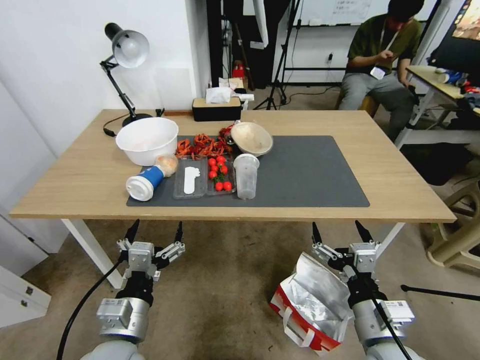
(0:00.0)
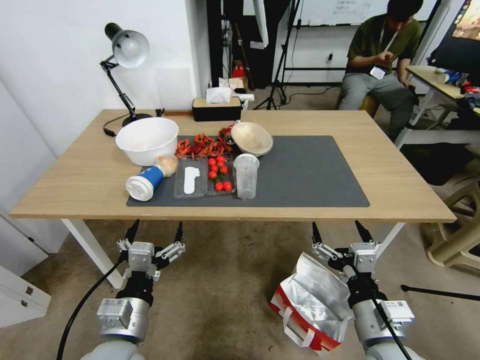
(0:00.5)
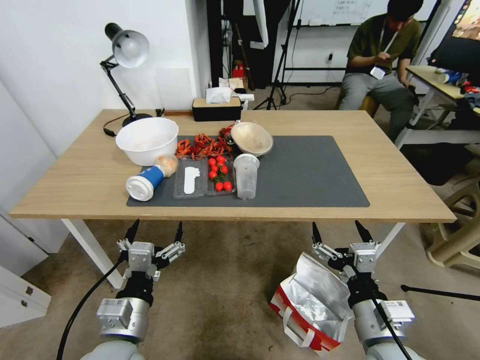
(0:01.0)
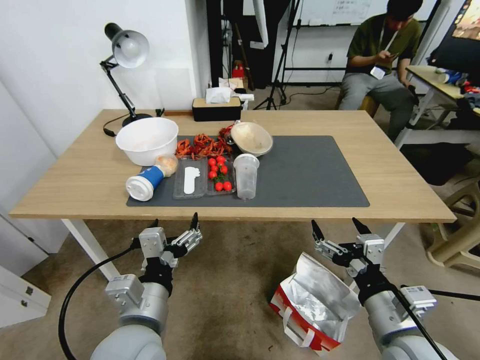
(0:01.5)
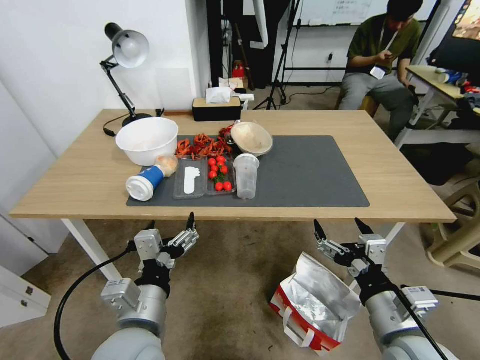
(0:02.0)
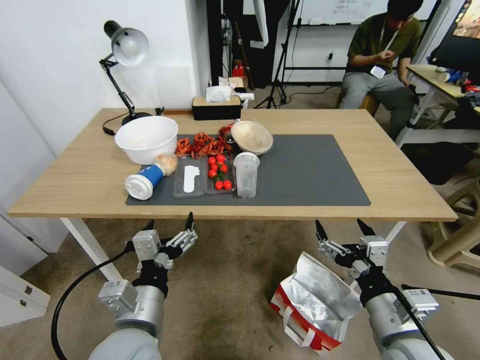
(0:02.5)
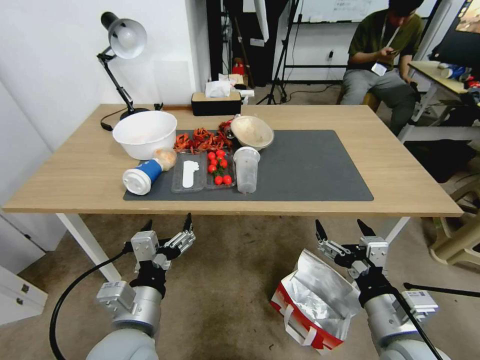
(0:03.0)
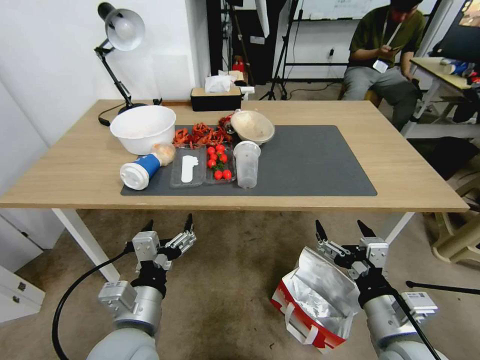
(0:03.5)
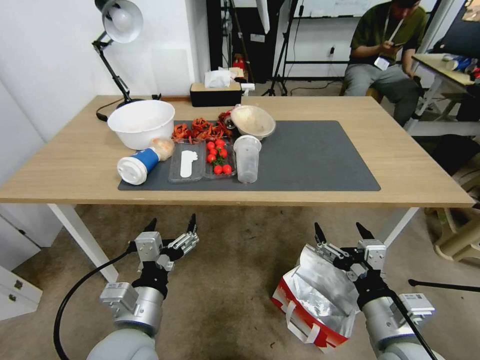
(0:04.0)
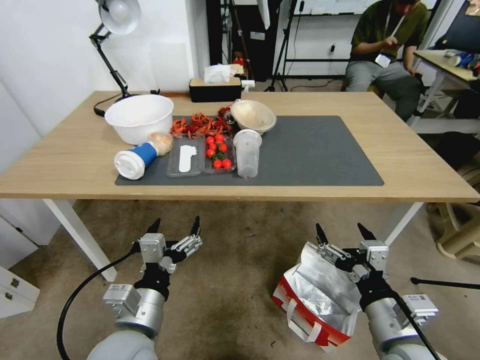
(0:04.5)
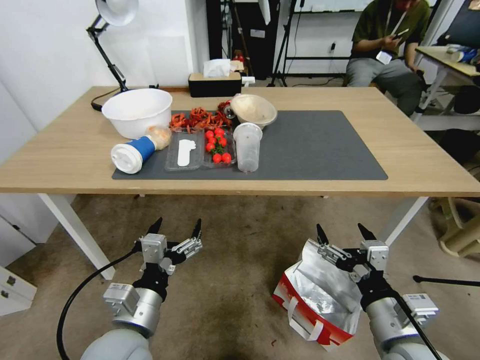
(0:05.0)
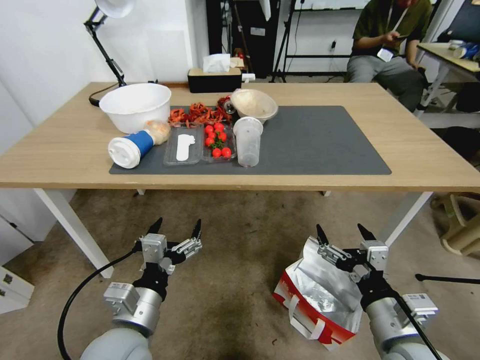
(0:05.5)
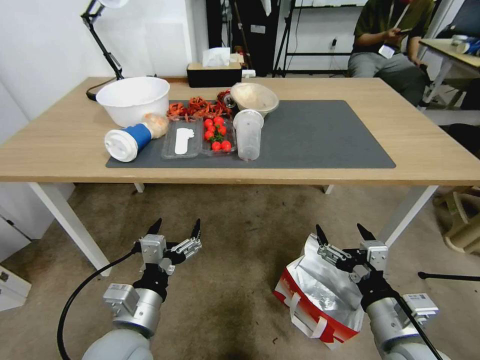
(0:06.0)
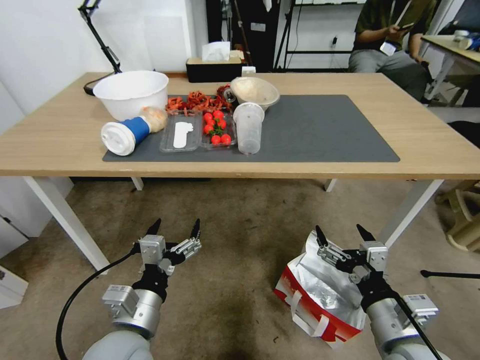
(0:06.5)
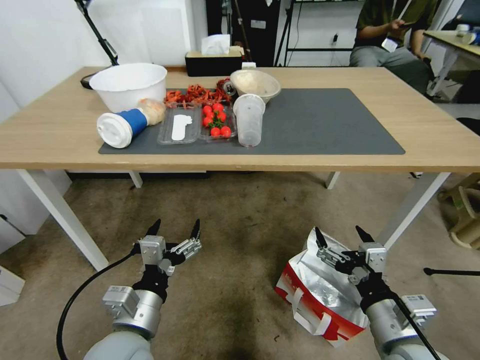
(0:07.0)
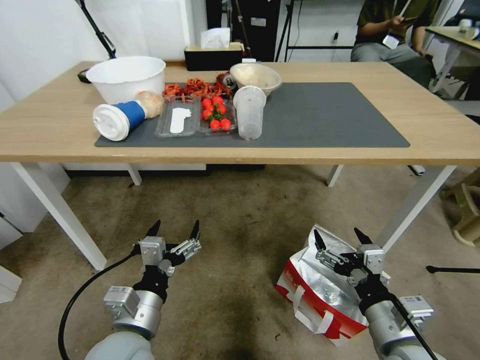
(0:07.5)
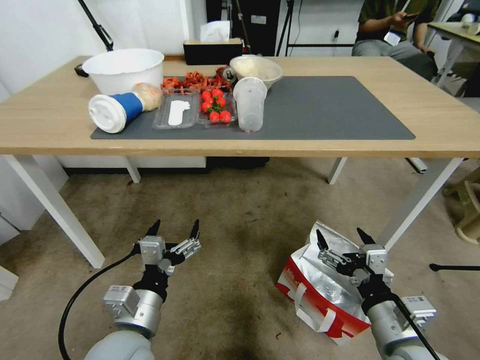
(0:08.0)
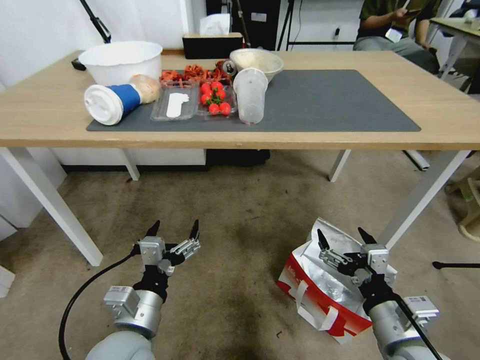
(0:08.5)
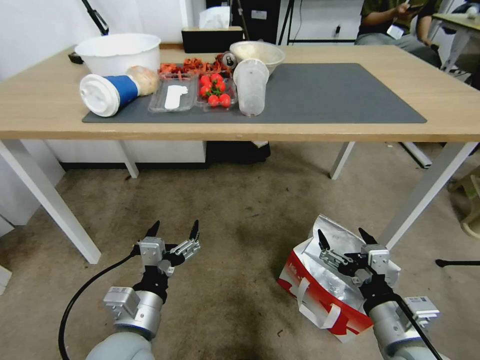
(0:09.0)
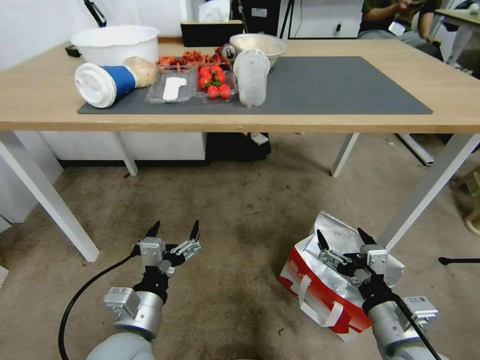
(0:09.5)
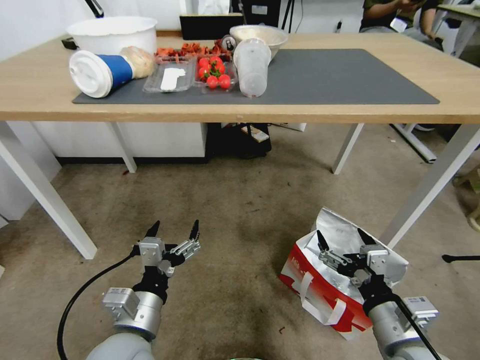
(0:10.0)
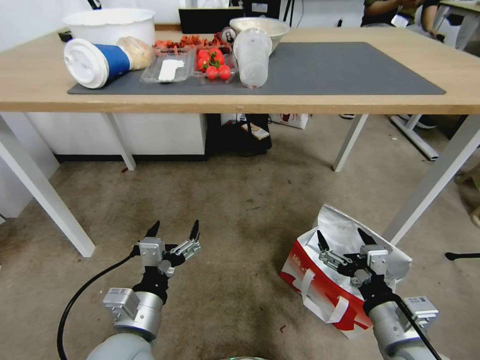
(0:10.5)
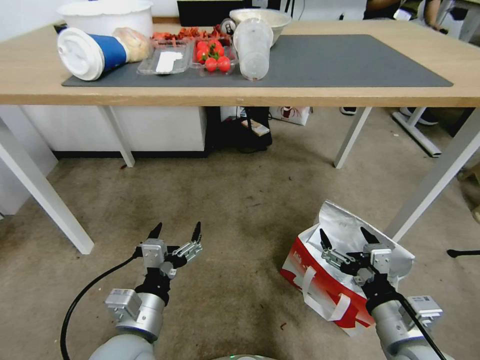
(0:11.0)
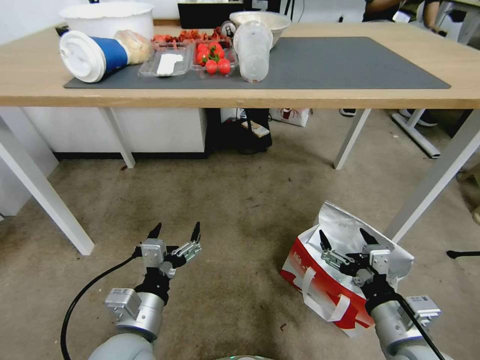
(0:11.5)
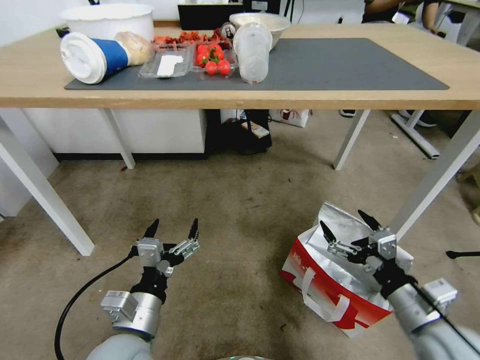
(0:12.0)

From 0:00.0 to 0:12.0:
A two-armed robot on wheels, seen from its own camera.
Task of the whole recording: Pick up the food delivery bag from the floor and place it on the table.
From 0:10.0 to 0:12.0: The right gripper shifts approximately 5 cm to the right.

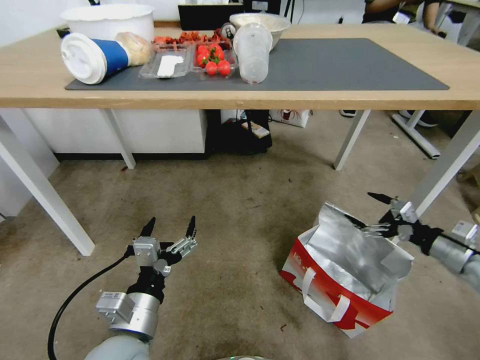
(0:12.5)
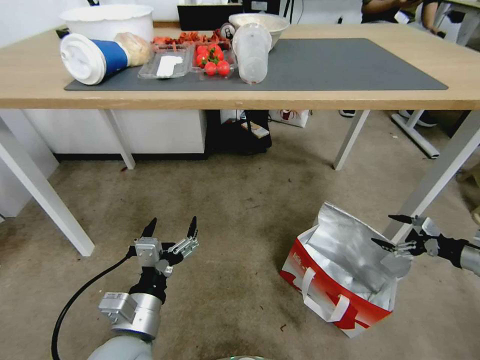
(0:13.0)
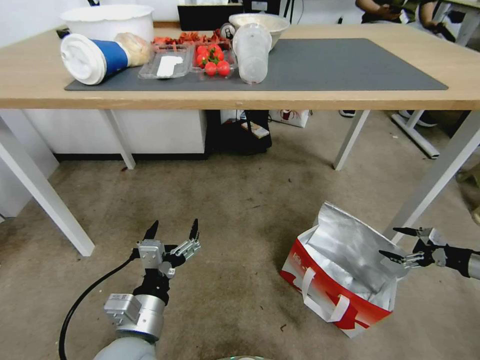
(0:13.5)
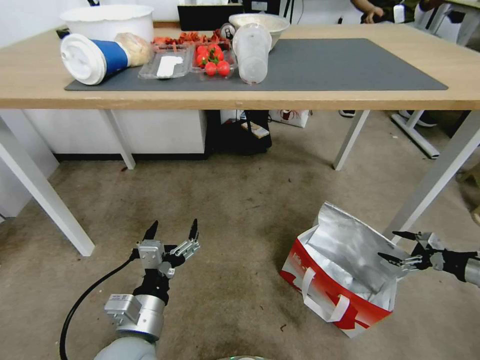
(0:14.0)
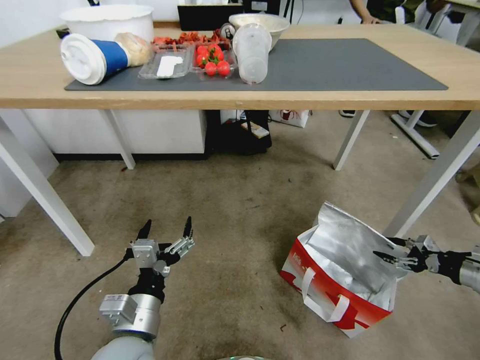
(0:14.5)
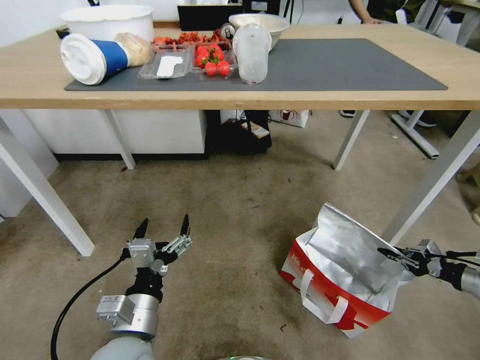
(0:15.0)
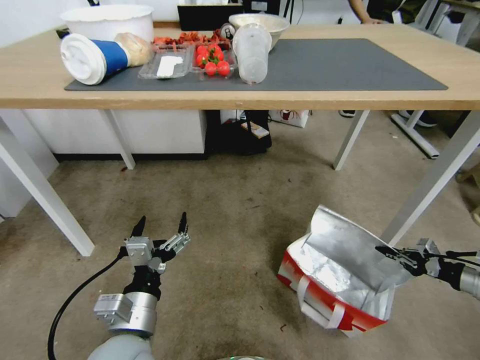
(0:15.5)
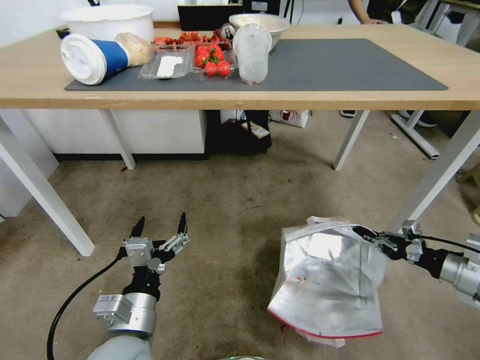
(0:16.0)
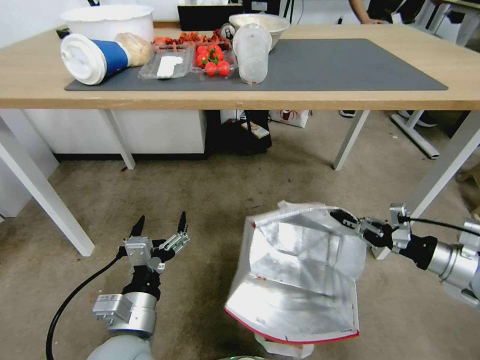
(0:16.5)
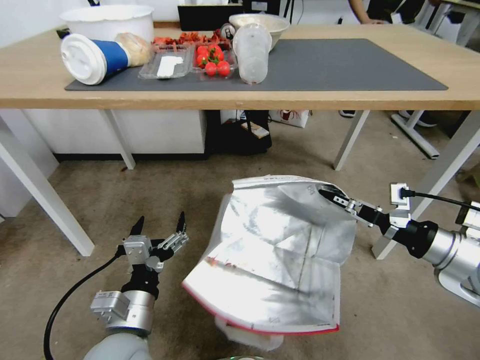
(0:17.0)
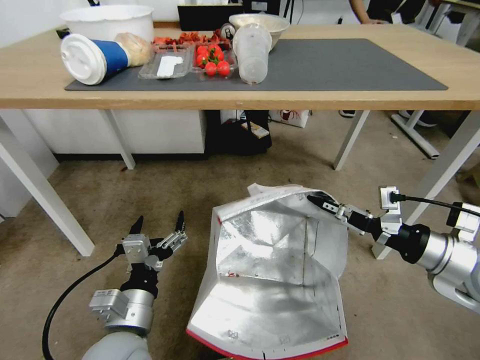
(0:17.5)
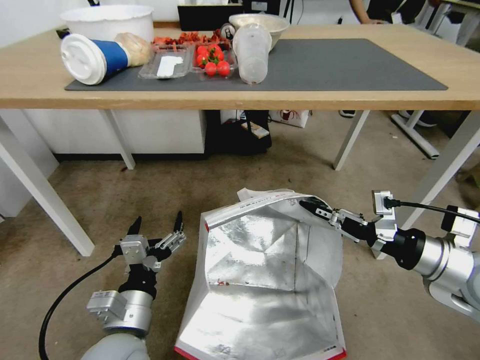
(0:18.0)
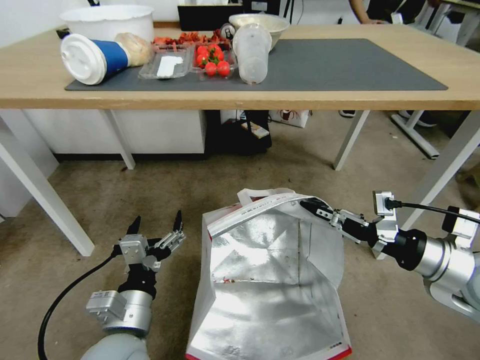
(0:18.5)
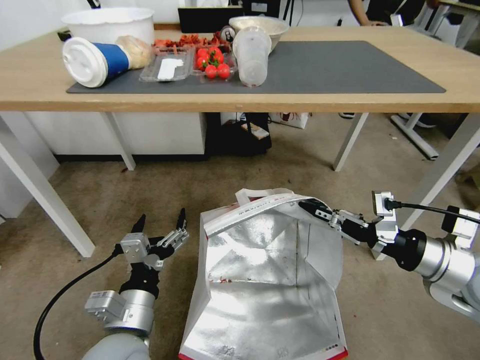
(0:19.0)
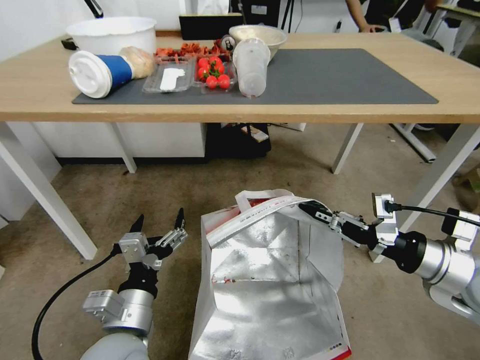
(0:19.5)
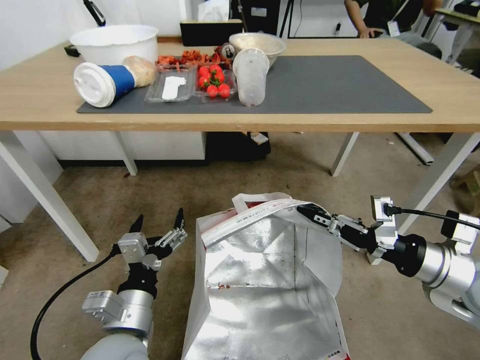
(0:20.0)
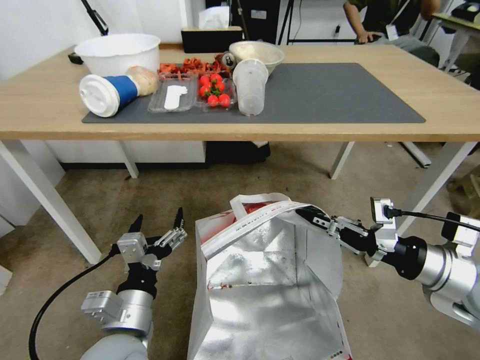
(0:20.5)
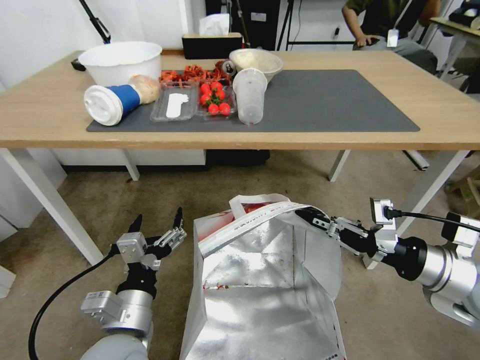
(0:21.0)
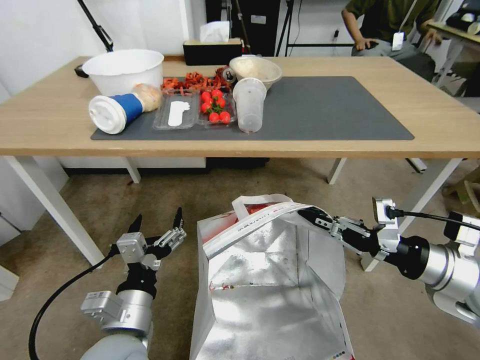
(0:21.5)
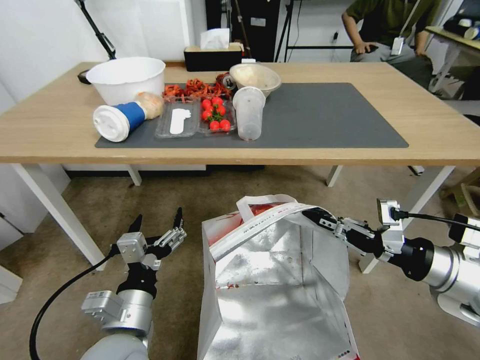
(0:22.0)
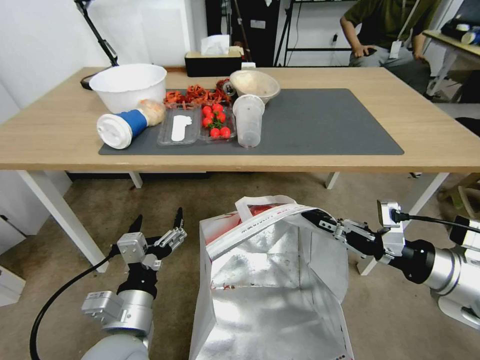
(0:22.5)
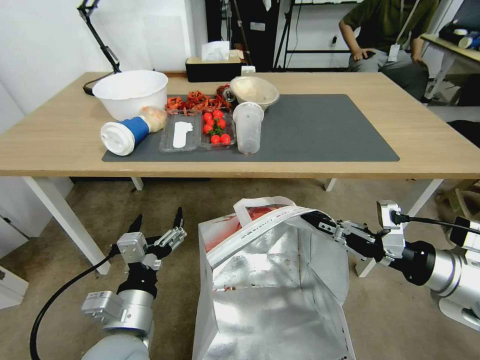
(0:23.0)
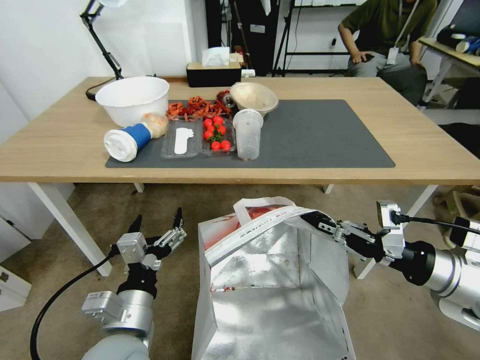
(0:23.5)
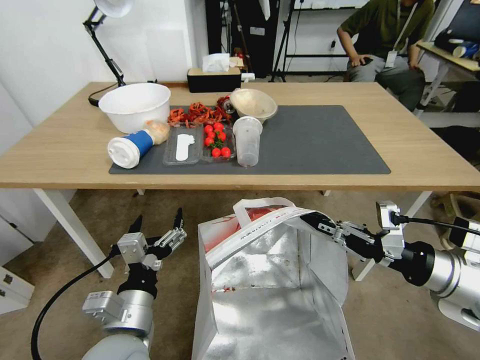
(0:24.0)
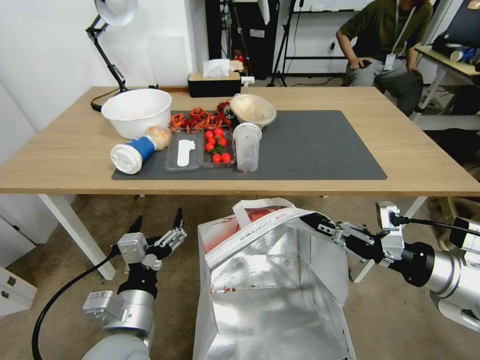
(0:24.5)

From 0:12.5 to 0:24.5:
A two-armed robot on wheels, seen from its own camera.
Task of the whole recording: Pick up the food delivery bag from the floor and place it on the table.
From 0:12.5 to 0:14.5: The right gripper goes approximately 15 cm to the right and downward.
From 0:14.5 to 0:16.5: The right gripper travels to the left and upward by approximately 20 cm, and closes its fingers.
From 0:16.5 to 0:18.5: The right gripper heads to the left and upward, covering approximately 10 cm.

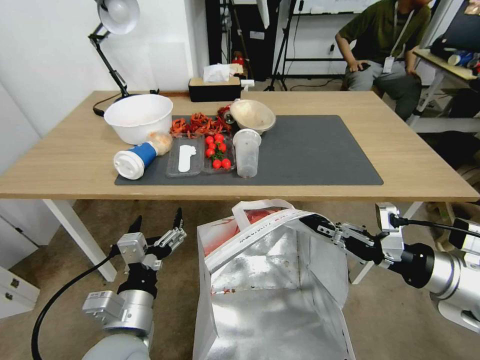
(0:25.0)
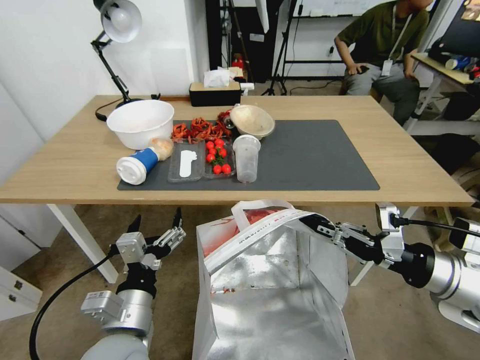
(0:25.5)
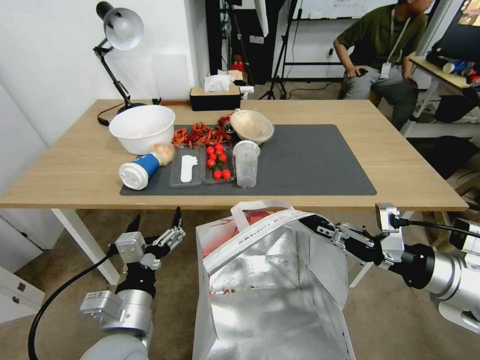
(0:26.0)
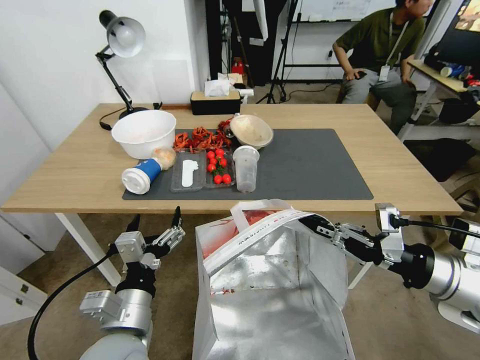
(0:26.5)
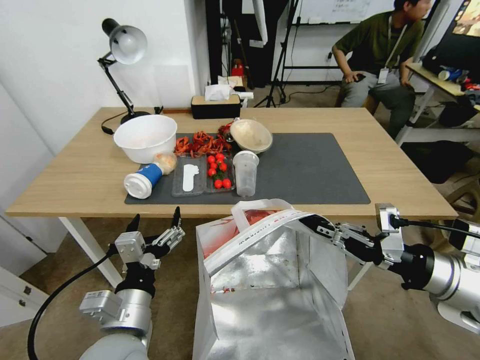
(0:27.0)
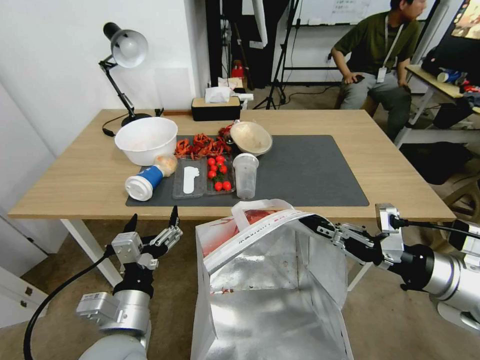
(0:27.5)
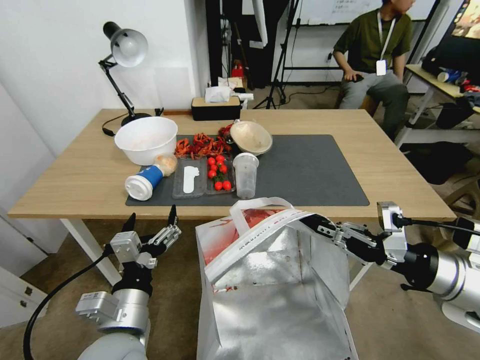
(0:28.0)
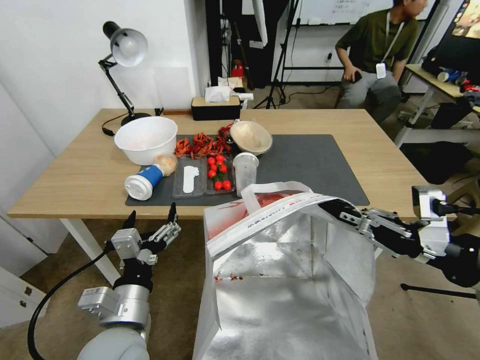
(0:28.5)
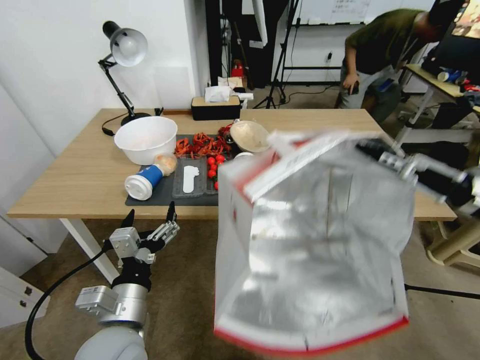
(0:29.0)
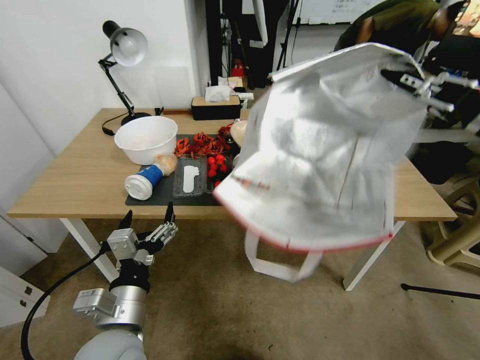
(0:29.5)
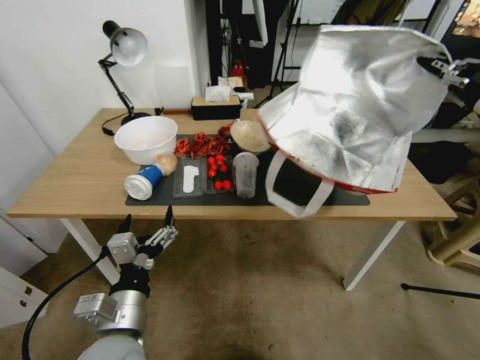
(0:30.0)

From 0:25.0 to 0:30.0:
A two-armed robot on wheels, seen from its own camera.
Task of the whole recording: Pick up the food delivery bag from the floor and place it on the table.
From 0:27.5 to 0:30.0: The right gripper travels upward by roughly 20 cm.
